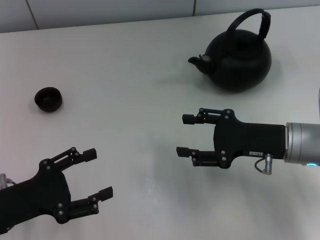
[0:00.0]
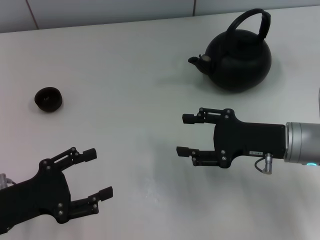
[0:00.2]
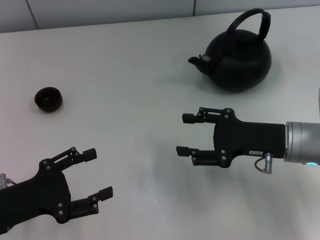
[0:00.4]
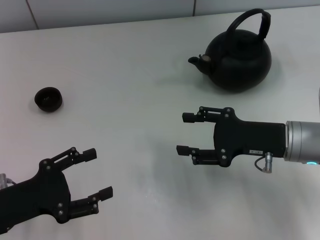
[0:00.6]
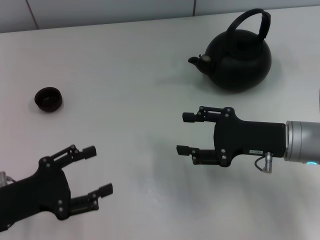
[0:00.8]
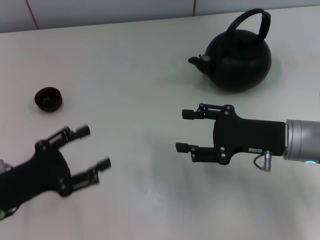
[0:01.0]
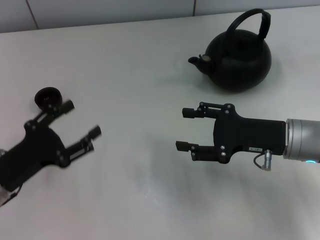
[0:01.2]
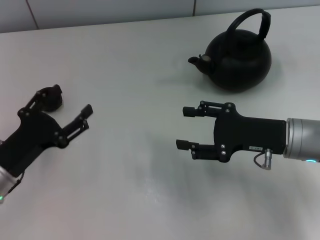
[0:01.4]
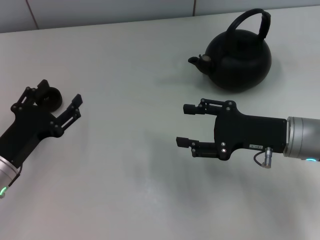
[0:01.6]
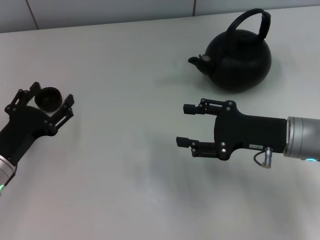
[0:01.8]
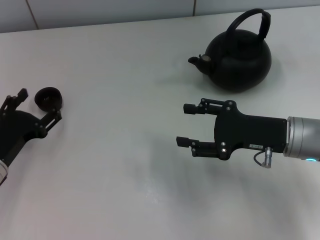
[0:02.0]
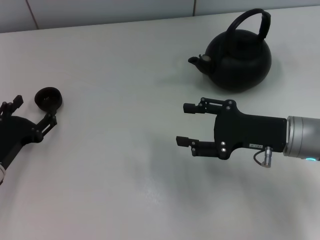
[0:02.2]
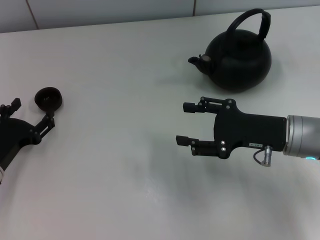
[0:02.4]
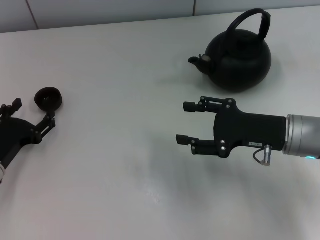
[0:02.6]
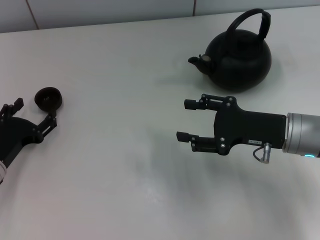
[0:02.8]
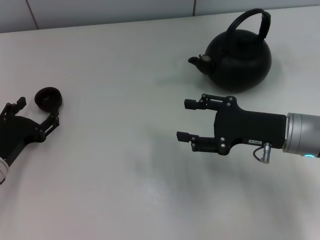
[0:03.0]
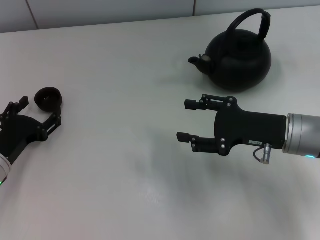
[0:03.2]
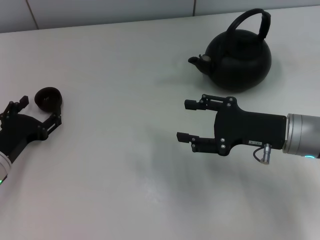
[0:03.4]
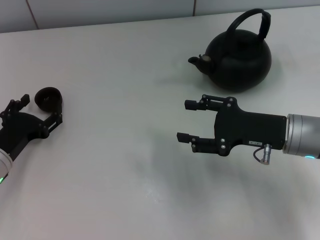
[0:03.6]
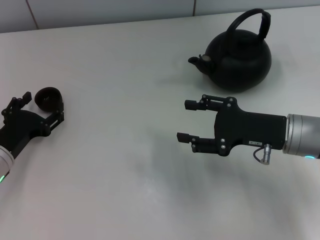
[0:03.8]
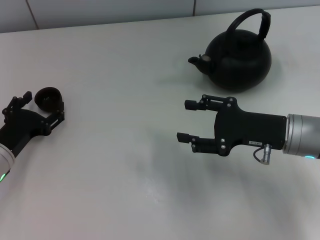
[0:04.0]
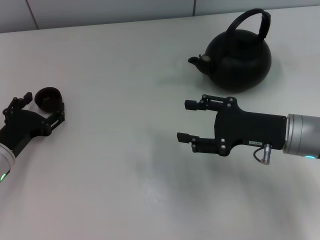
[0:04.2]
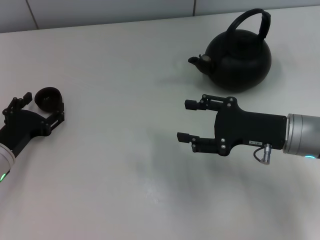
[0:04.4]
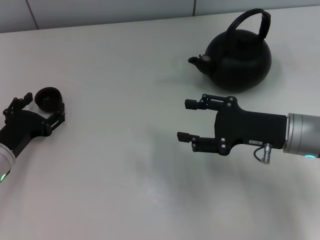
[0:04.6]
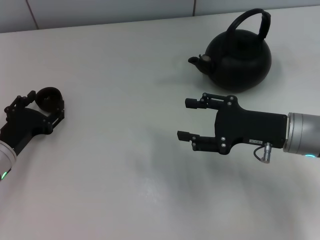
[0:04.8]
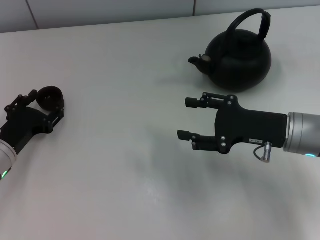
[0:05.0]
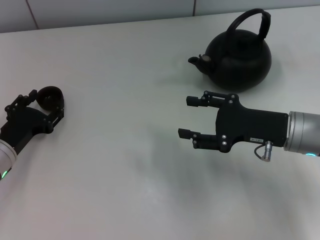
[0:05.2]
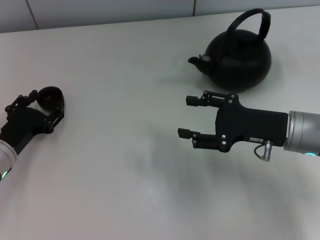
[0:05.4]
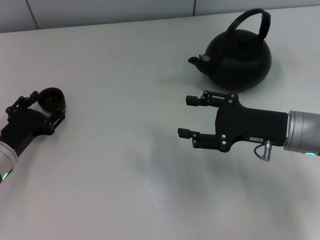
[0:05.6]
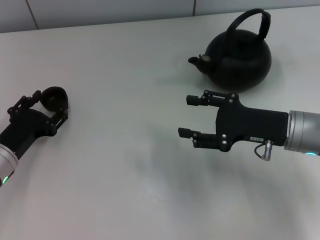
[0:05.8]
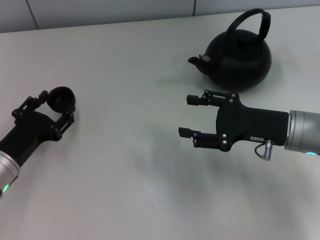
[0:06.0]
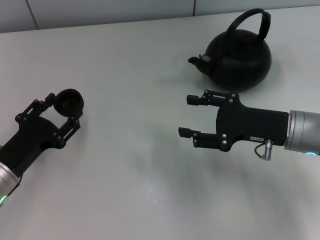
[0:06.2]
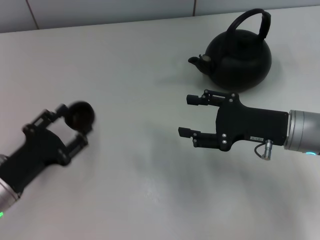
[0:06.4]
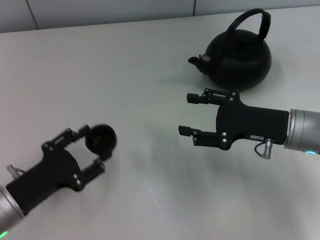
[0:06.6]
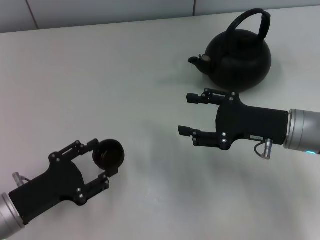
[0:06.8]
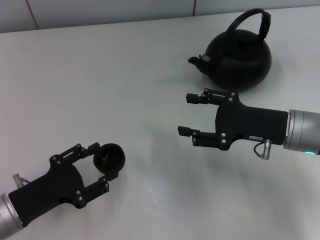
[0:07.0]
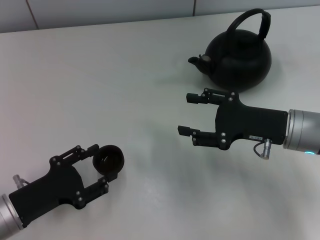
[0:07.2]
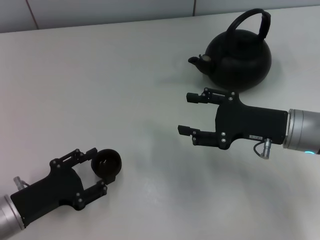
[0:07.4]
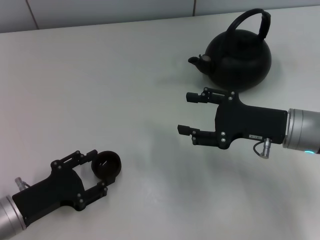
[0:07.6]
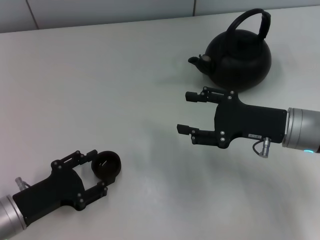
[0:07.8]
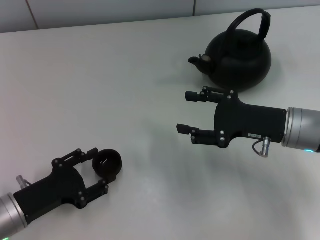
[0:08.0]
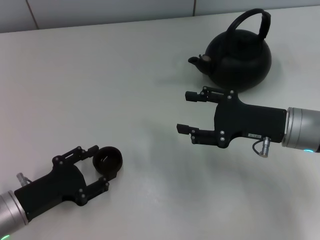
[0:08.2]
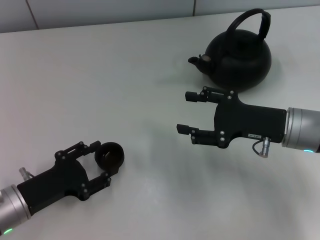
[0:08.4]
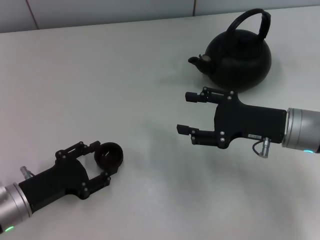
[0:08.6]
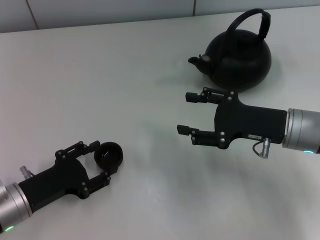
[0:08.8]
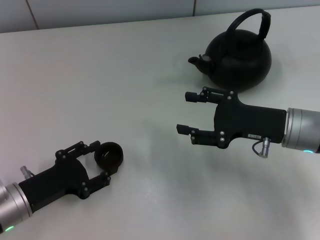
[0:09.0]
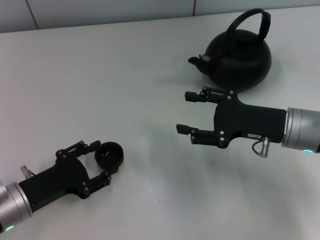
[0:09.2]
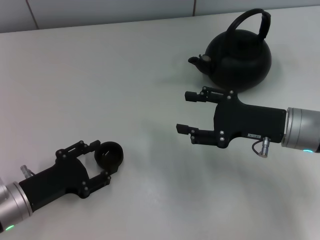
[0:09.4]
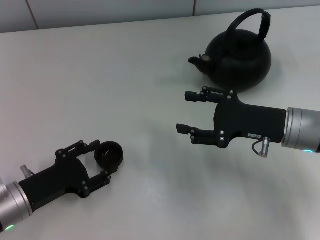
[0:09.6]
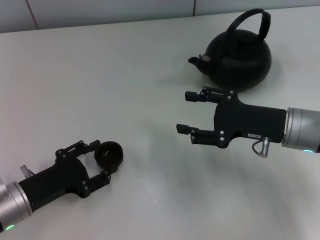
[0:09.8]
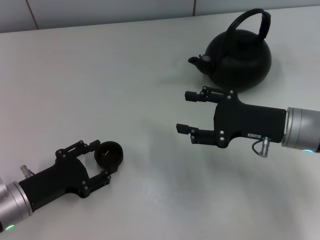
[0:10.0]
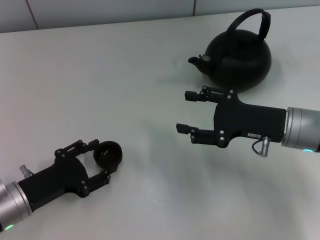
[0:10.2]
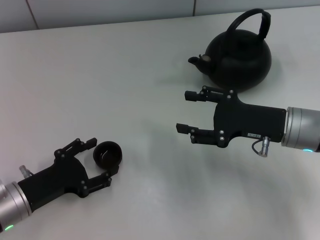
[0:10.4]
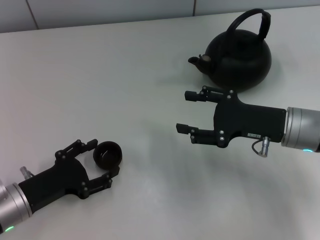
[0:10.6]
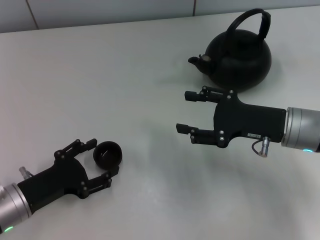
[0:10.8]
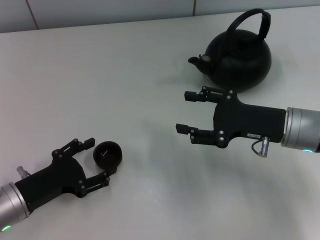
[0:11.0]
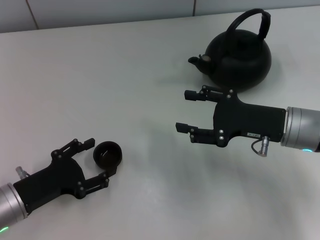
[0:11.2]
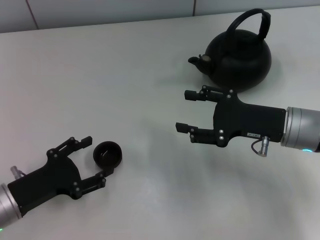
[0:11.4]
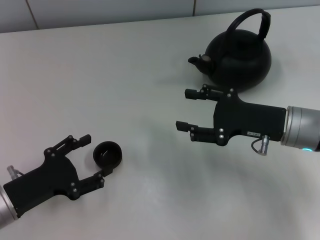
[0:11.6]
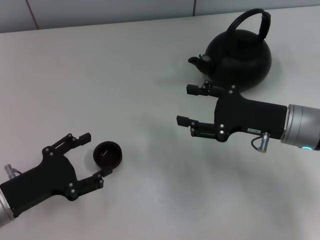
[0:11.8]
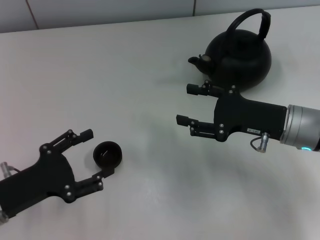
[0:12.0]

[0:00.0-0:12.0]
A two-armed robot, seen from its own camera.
Task of the whole recording: Grasp the handle of the teapot with one hand and pour tea into the teacup.
Step, 0:00.0 to 0:05.8: Pick up the teacup with the left gripper.
Step, 0:06.0 to 0:11.4: Place the teacup in the center of view with the left gripper.
0:00.0 to 0:01.6: The left gripper ends up about 5 cm from where it was.
0:01.6 to 0:03.0: The grippers make only small movements.
0:03.0 to 0:06.0: The grippers stay close to where they were, moving slightly.
0:06.0 to 0:07.6: The left gripper heads backward, covering roughly 5 cm.
0:07.6 to 0:09.0: The left gripper opens its fingers.
0:09.0 to 0:10.4: The left gripper opens up.
0:10.4 to 0:12.0: The grippers stay close to where they were, moving slightly.

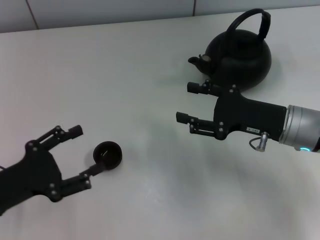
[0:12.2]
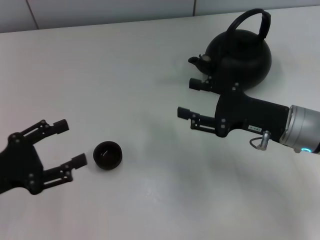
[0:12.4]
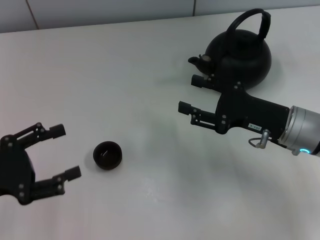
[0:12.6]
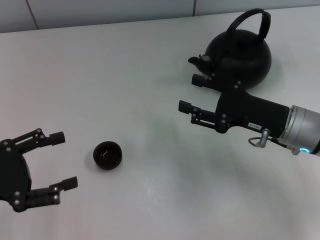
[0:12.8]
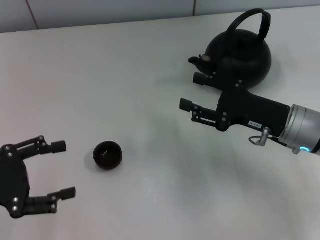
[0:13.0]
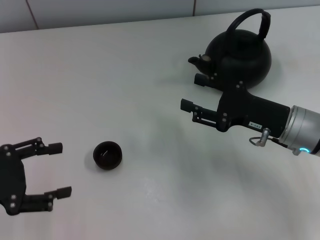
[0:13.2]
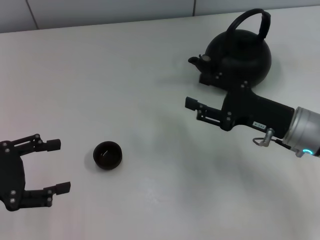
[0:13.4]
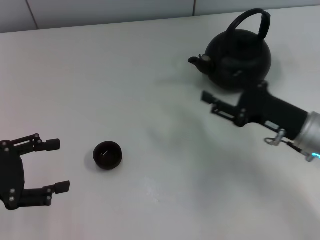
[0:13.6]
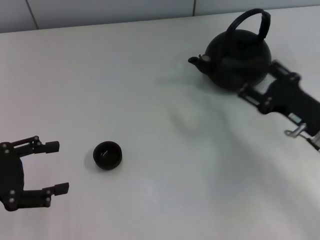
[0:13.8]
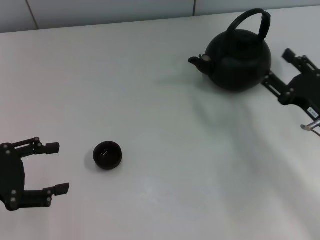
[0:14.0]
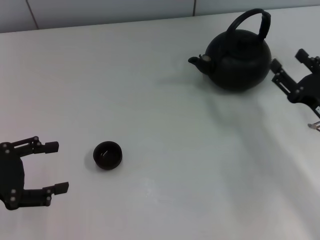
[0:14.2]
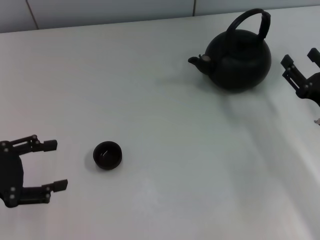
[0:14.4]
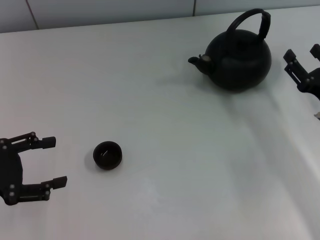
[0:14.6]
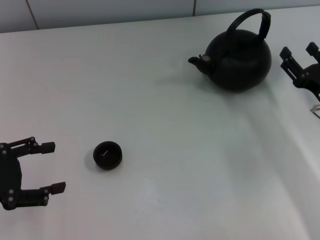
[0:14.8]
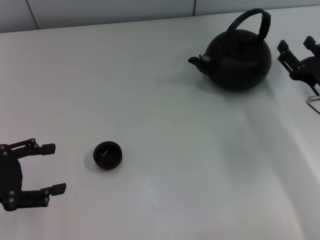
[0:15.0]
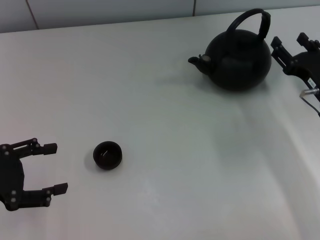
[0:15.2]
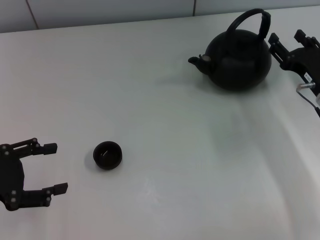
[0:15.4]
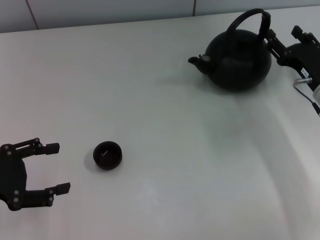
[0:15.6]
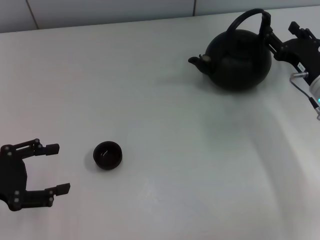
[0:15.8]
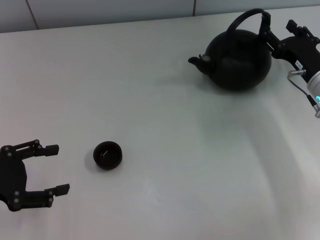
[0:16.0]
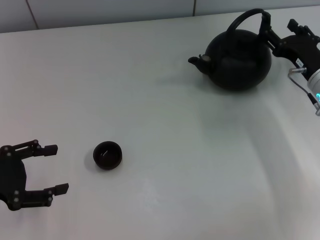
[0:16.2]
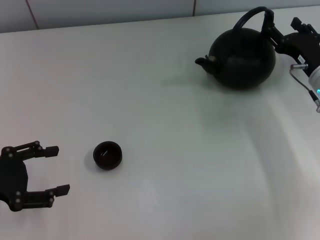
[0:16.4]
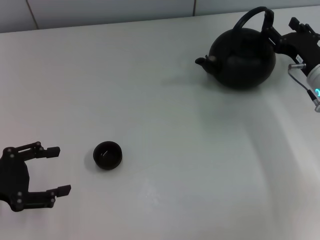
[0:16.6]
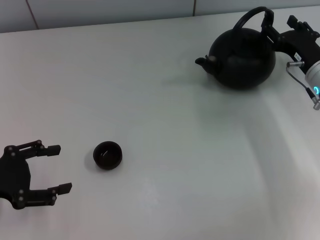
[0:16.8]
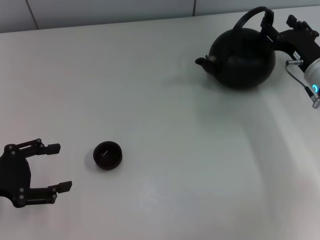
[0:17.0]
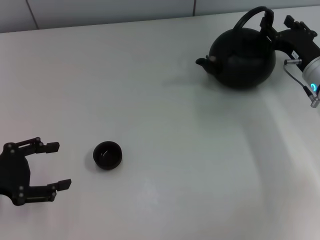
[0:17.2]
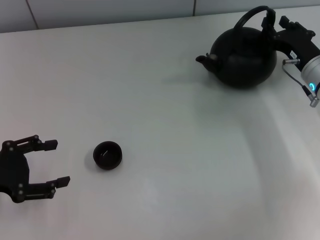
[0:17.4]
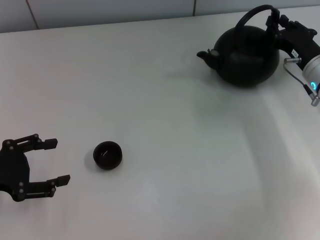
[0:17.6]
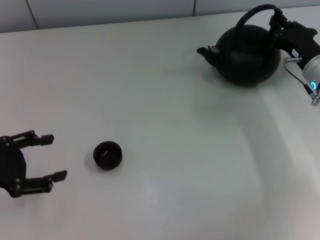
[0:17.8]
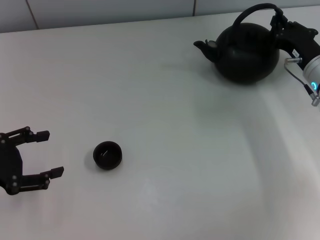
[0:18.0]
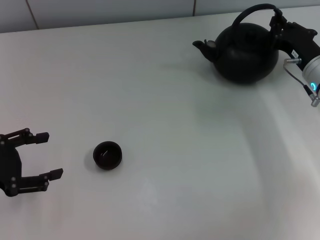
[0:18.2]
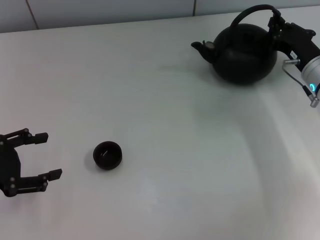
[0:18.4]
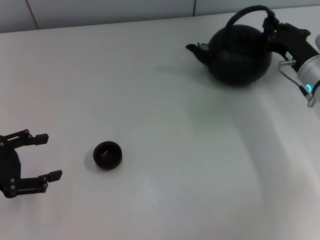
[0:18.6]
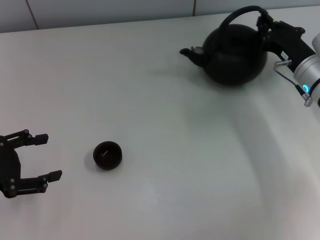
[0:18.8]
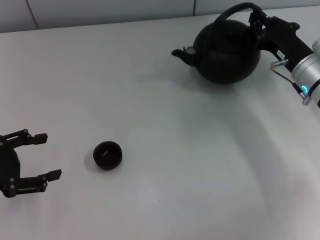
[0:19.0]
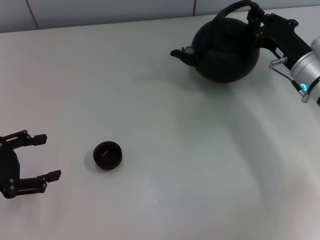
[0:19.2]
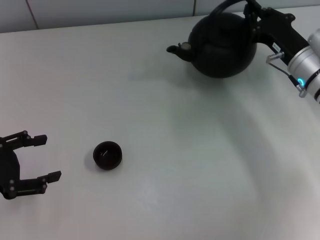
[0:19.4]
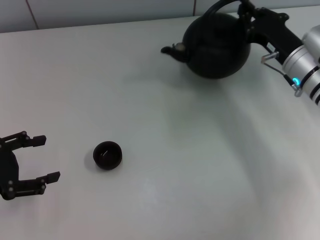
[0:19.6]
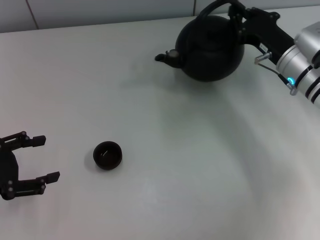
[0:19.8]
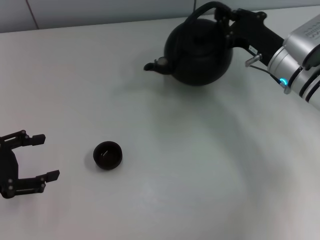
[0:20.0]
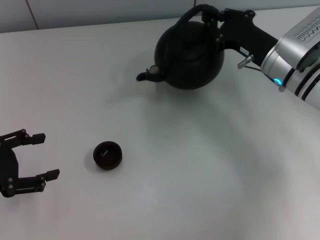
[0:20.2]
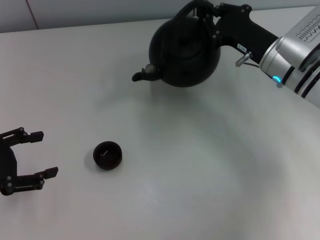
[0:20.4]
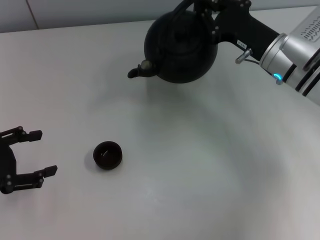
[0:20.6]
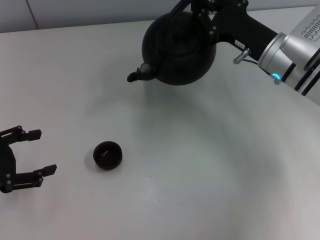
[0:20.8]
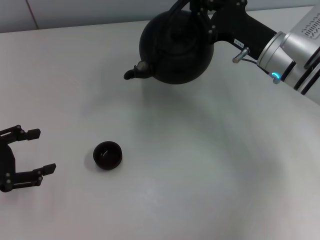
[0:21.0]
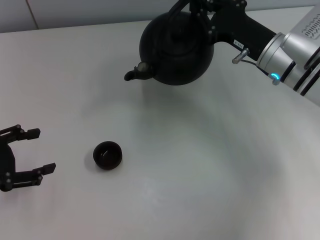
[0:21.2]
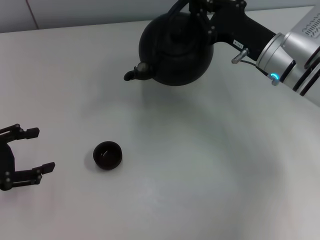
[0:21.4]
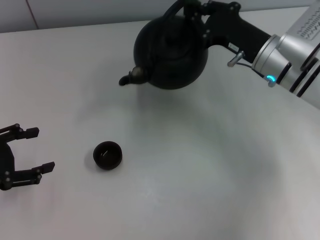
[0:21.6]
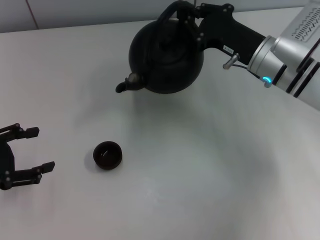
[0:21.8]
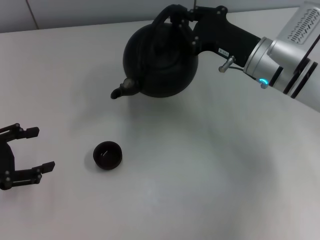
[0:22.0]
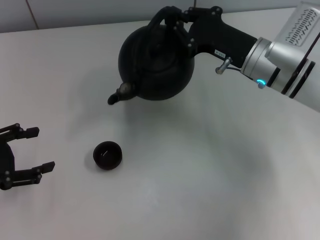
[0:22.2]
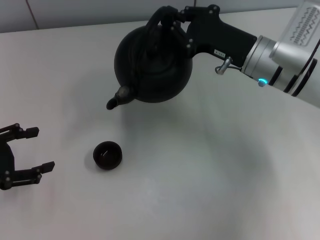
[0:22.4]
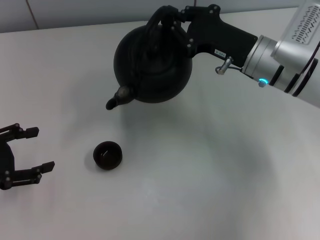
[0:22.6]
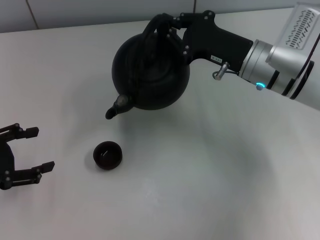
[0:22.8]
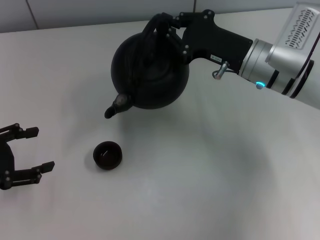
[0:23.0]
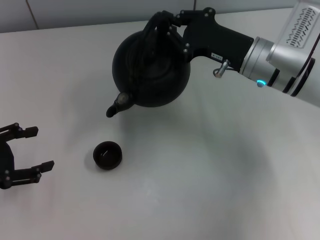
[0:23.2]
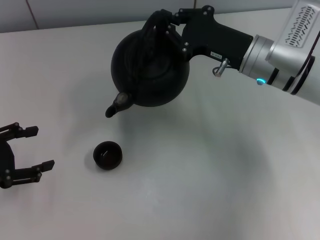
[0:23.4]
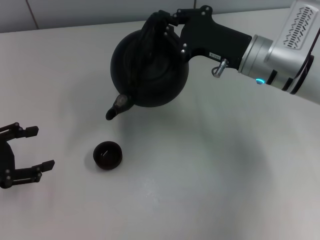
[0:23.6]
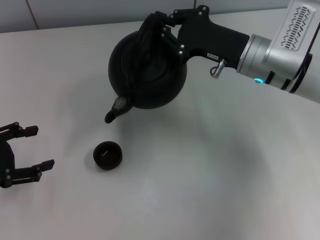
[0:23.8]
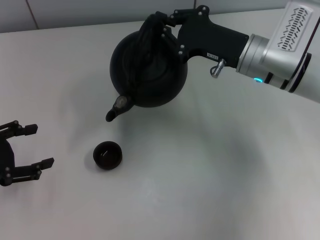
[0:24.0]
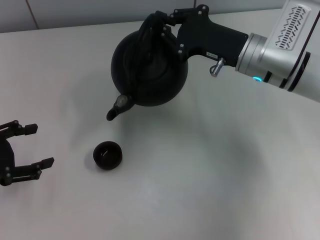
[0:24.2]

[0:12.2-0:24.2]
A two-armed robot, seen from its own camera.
Task of the whole recording: Grasp the handle of the teapot with one hand and pour tea into the teacup.
Step, 0:12.2 to 0:19.8: Pick up the teapot with the right gripper.
0:12.2 to 0:13.8: The right gripper ends up roughly 5 cm from where it was. Meanwhile the left gripper heads upward, covering roughly 5 cm.
0:13.8 to 0:15.2: The right gripper moves approximately 5 cm.
0:15.2 to 0:16.6: The right gripper shifts by roughly 5 cm.
0:16.6 to 0:18.2: The right gripper closes up.
0:18.2 to 0:19.8: The grippers make only small movements.
0:19.8 to 0:21.2: There are only small adjustments of the grippers.
0:21.2 to 0:24.2: The grippers move only a little.
